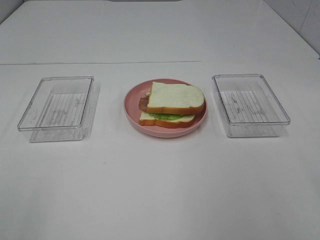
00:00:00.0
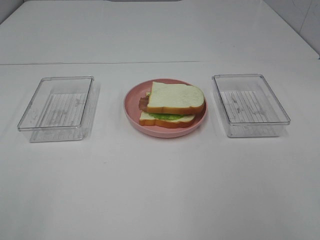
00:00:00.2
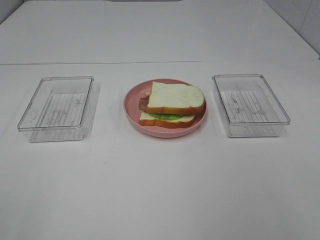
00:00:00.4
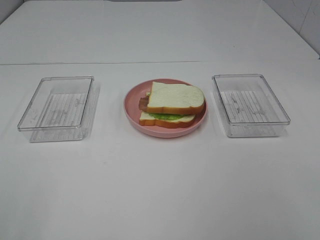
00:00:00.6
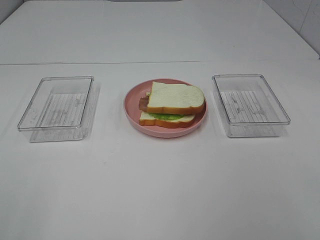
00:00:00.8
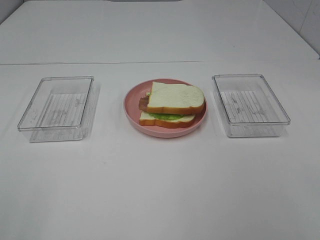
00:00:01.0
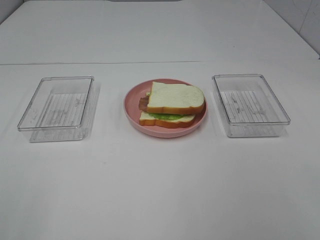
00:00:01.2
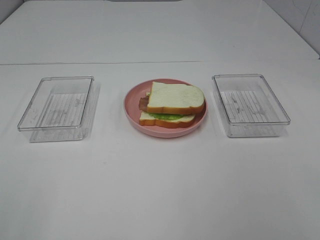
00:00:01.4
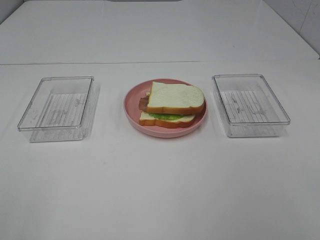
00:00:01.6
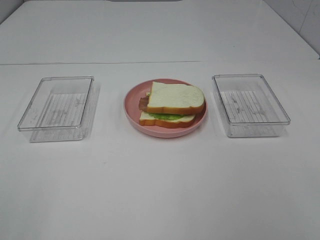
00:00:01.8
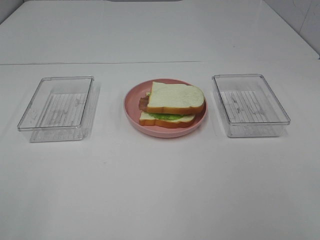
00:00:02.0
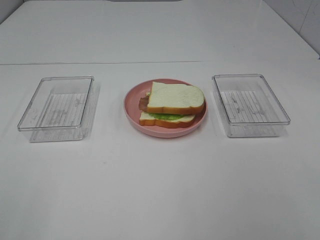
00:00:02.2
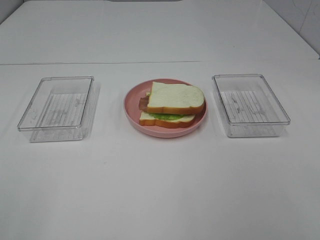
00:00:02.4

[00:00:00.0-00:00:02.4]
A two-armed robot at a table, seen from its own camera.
Task of the whole recording: Make sandwiches.
00:00:01.2 to 00:00:02.4: Both grippers stay put.
